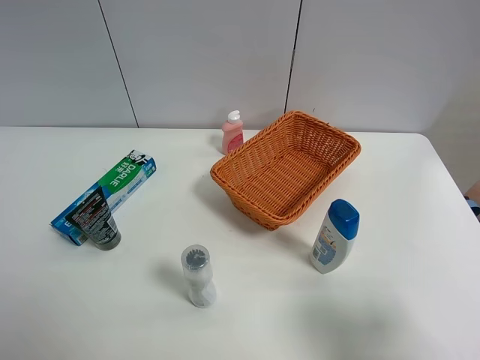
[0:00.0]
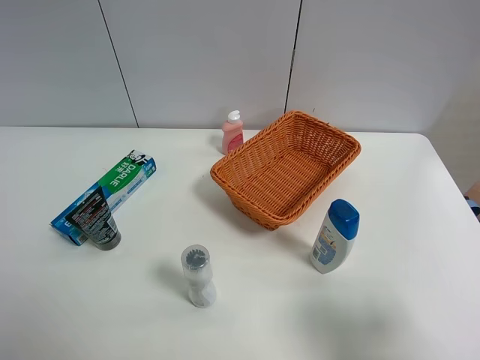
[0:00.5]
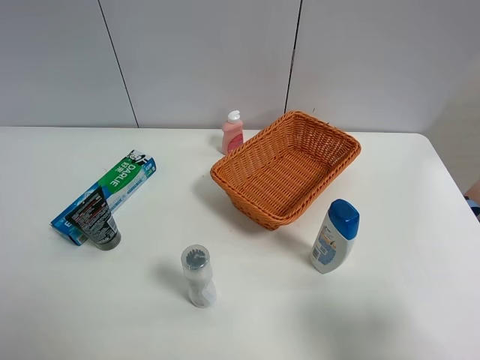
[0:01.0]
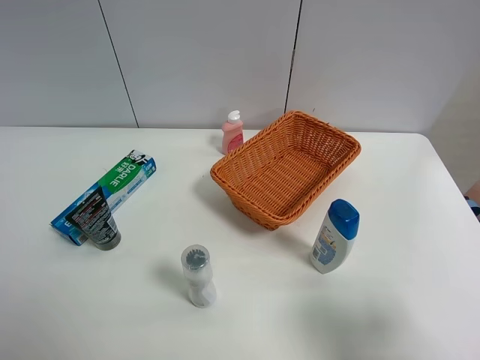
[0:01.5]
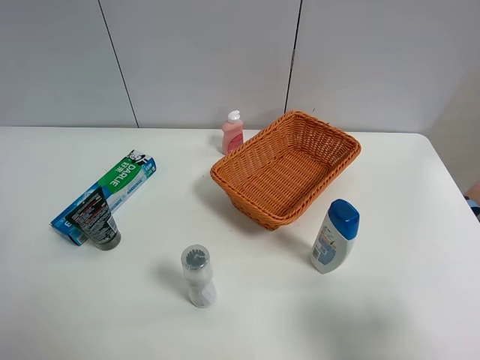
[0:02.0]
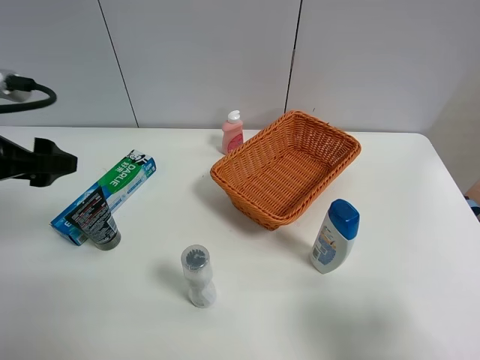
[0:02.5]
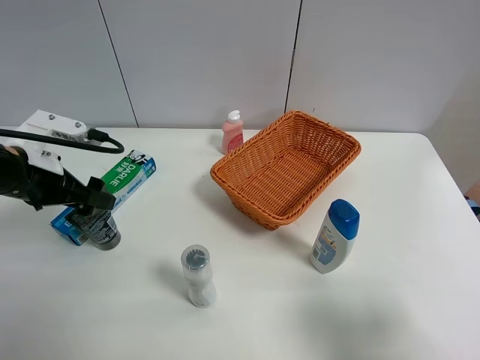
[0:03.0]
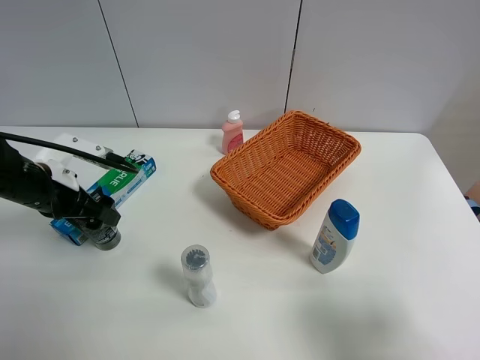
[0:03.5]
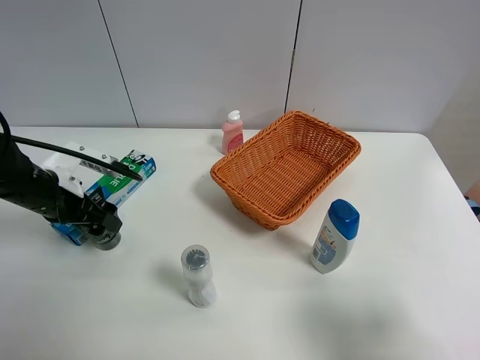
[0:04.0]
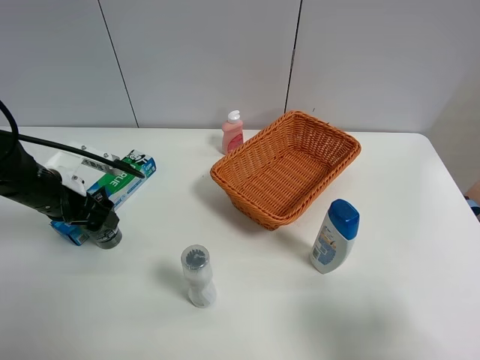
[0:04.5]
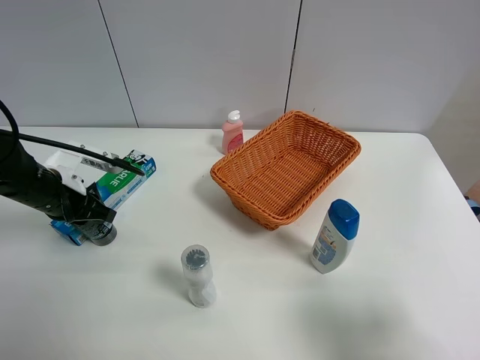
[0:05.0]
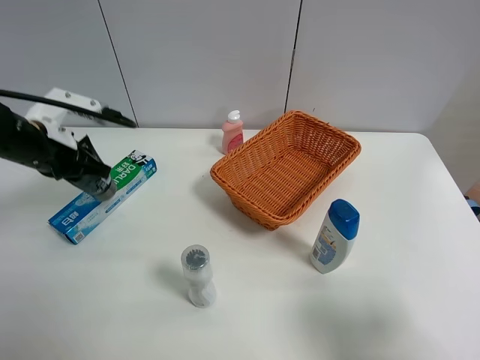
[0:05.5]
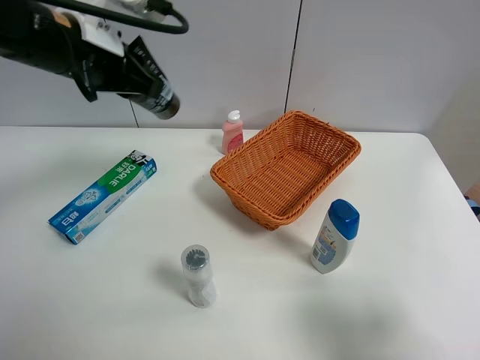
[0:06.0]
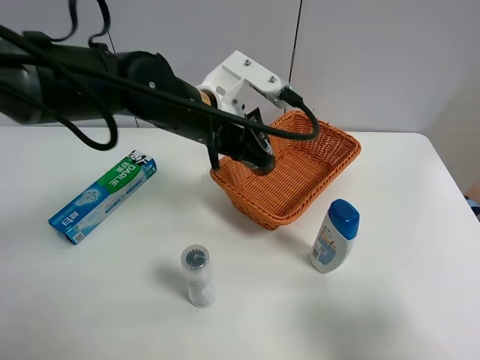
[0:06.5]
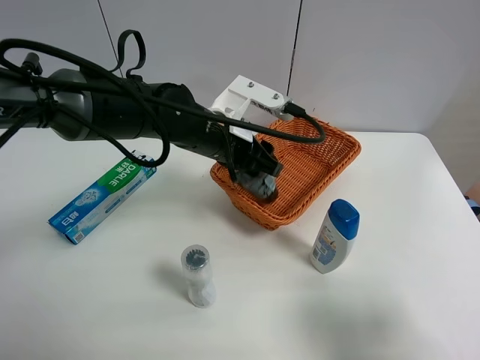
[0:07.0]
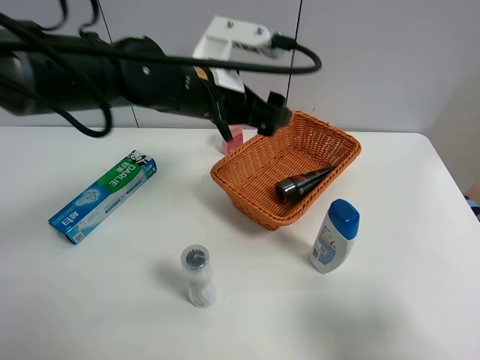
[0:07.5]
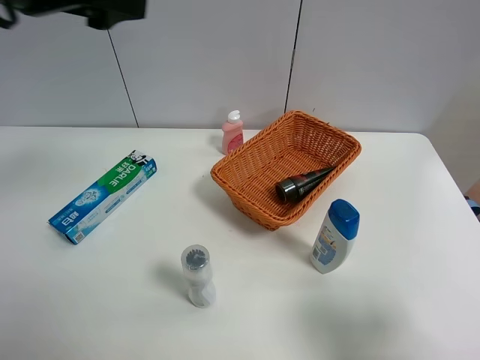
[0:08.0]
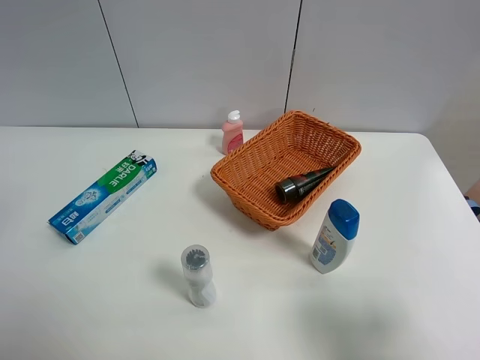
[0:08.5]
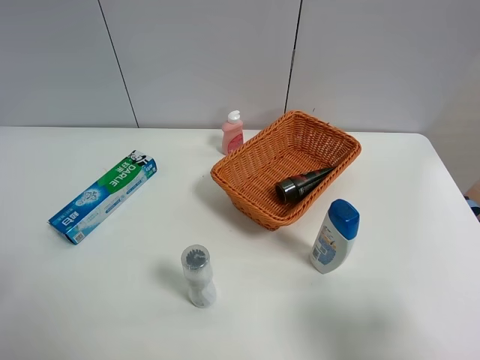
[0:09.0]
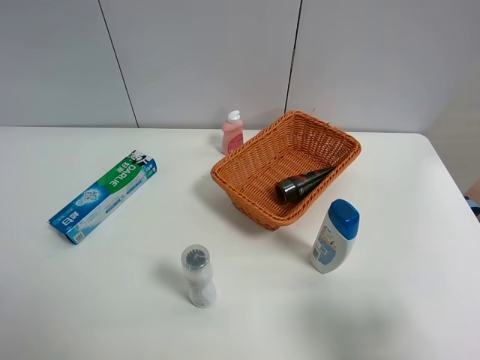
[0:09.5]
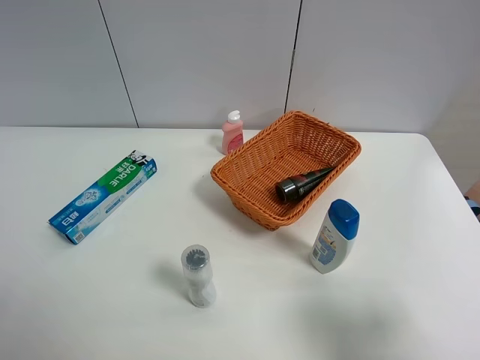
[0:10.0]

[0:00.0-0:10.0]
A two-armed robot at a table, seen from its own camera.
Task of the whole recording: Place the object closest to the toothpaste in the basket.
Step, 0:00.0 to 0:04.5: Grasp the soft facial cleanser with left gripper.
Step, 0:05.0 to 0:07.0: Place the soft facial cleanser in the basket with left gripper.
0:02.0 to 0:04.0: The left gripper shifts about 25 cm downward and forward.
0:04.0 to 0:06.0: The left gripper is displaced upward and to the right by roughly 20 cm, and closes up.
0:06.0 to 0:08.0: The left gripper travels upward and to the left by approximately 10 cm, and opens.
0:08.0 to 0:10.0: The left gripper travels backward and downward by roughly 30 cm.
